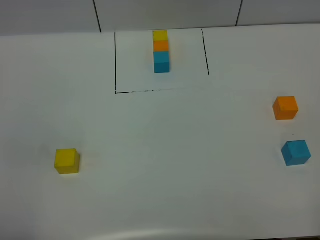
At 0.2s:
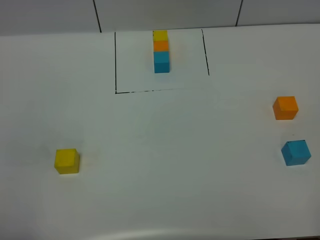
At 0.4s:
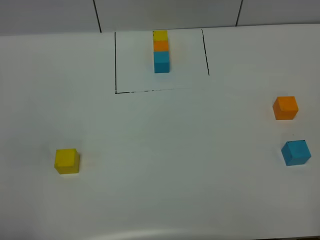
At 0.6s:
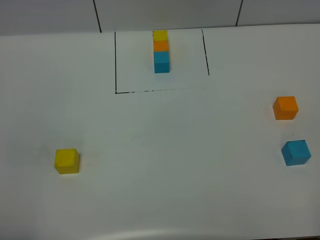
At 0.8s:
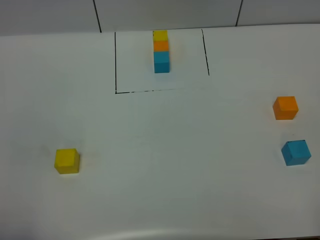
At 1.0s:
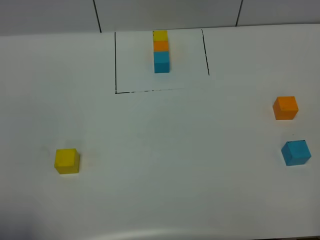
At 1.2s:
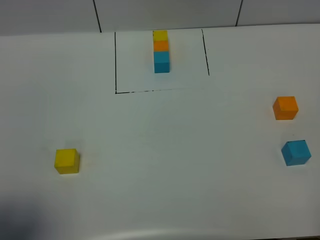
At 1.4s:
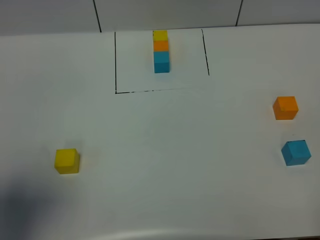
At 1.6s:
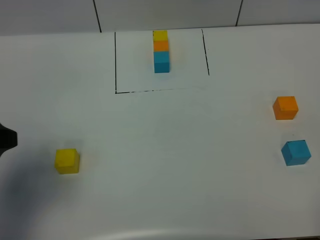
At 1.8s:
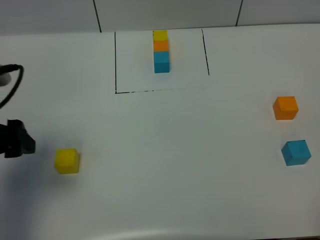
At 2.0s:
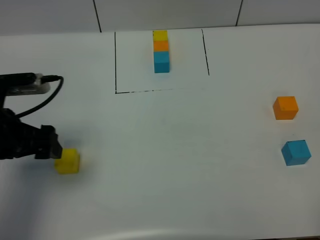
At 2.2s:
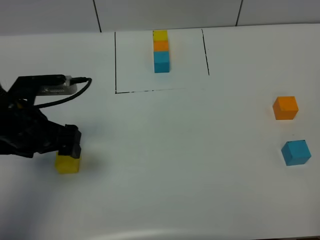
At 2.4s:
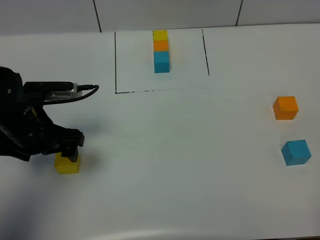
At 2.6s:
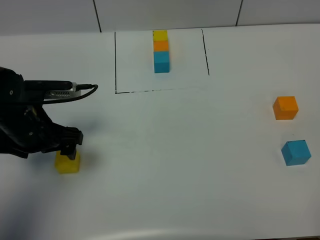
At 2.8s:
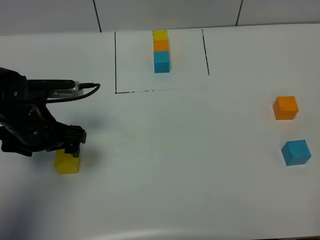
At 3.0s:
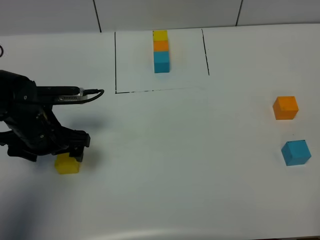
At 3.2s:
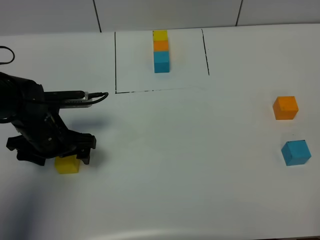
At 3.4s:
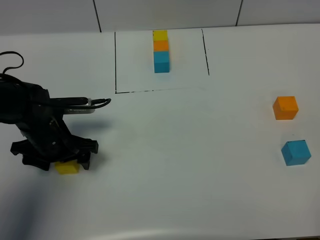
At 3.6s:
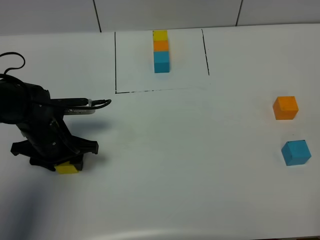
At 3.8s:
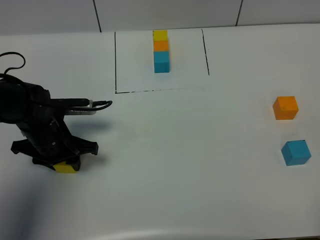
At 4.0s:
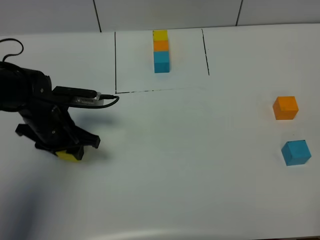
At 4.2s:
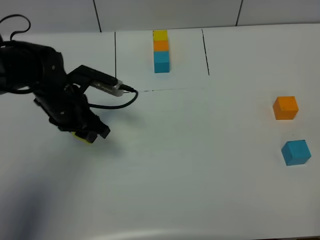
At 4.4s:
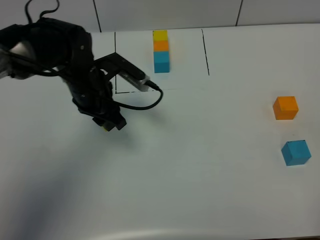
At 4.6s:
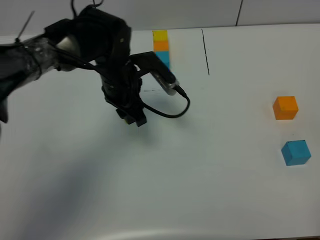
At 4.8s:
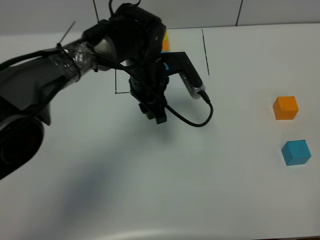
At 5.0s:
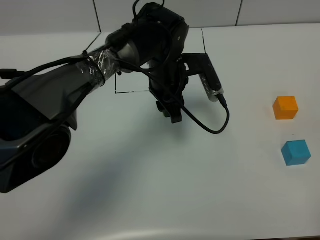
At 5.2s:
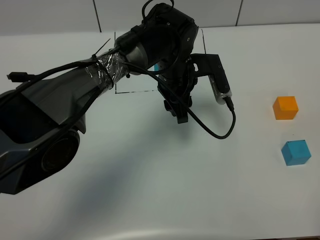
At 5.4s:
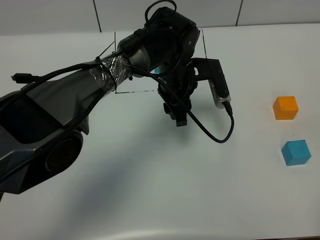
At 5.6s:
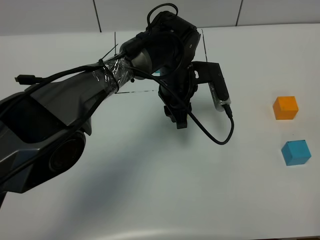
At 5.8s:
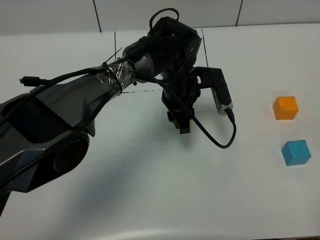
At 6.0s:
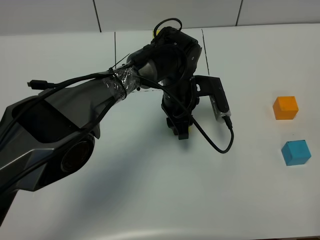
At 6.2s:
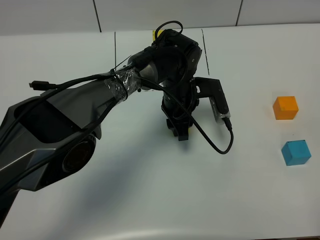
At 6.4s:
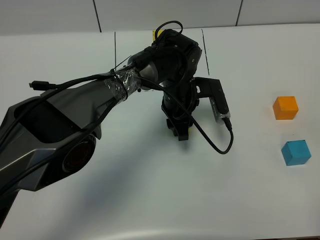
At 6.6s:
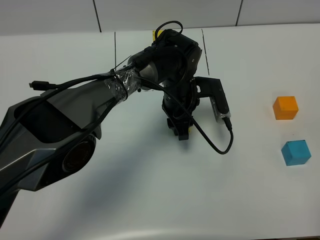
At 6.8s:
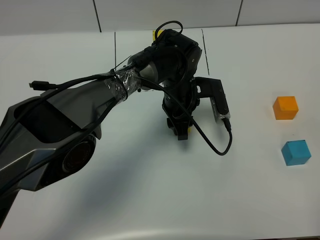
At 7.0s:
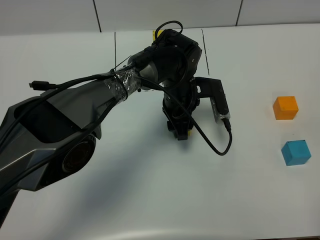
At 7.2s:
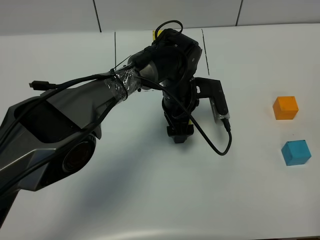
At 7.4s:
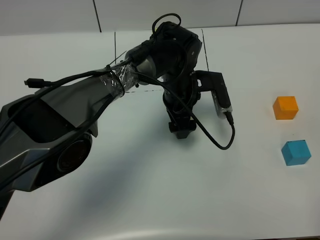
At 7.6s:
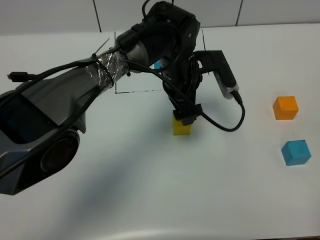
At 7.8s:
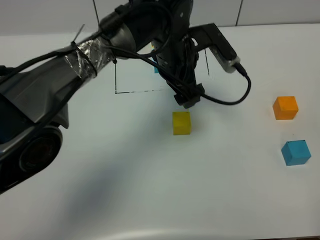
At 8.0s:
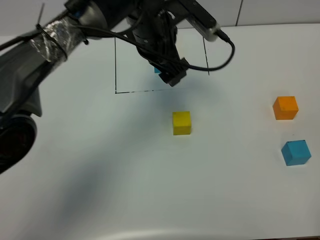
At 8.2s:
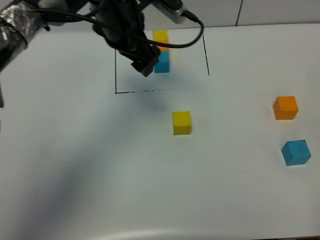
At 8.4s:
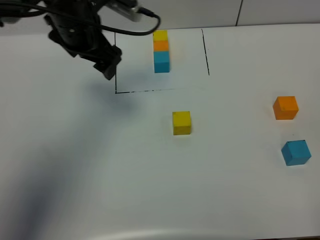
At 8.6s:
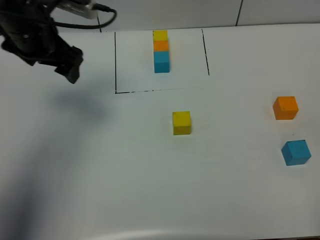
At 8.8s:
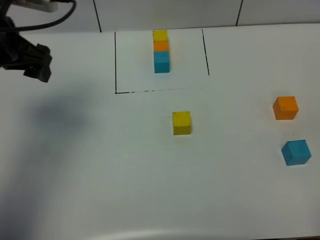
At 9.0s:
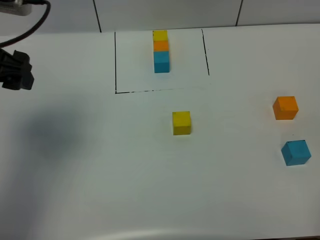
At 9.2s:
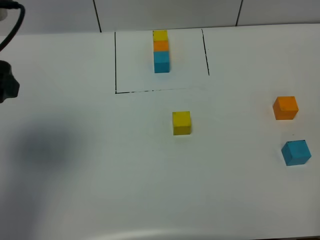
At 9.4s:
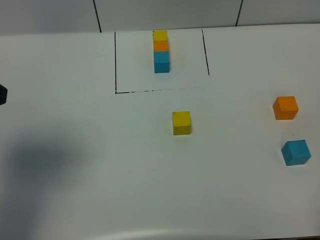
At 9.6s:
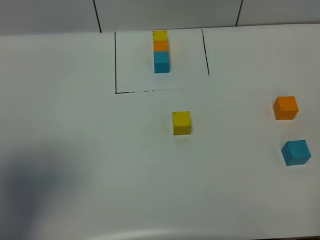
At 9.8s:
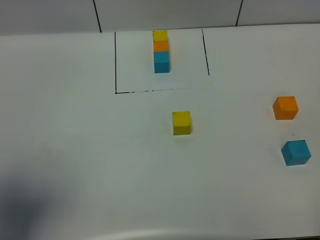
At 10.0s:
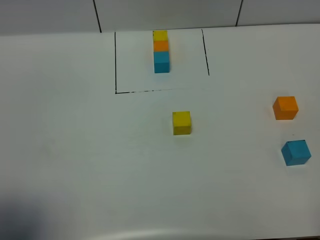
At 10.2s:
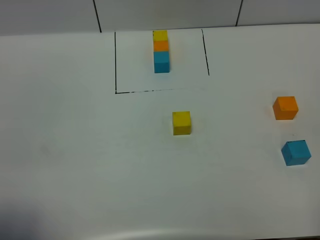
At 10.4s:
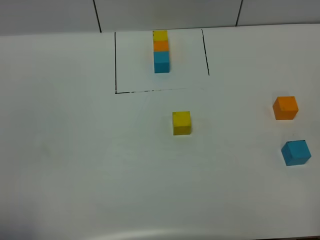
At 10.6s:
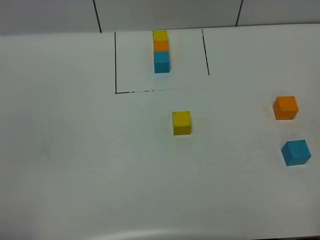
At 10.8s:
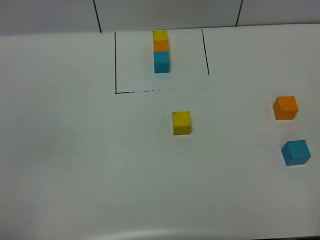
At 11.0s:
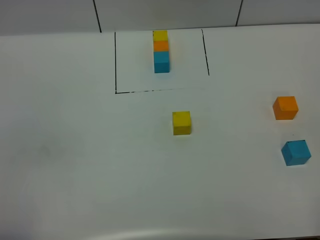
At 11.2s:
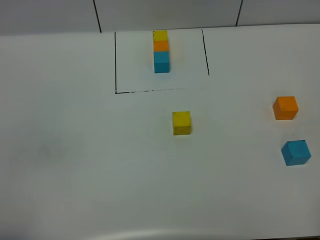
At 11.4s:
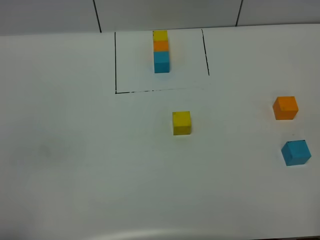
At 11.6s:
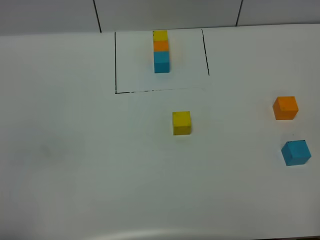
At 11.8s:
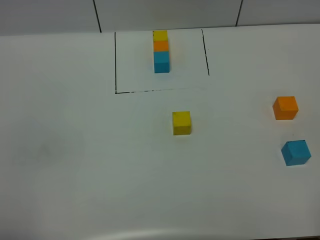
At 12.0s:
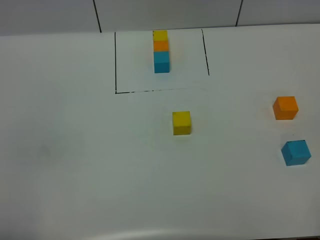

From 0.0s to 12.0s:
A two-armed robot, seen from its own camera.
Task of the whole recording: According to the building block template in front, assemble the scattered blocks together.
Step, from 1.6s to 7.4s: Put the yellow cube in the center of the table.
From 0.0s to 1.6s: The left gripper shifts approximately 20 cm forward.
From 1.6s to 3.0s: The left gripper travels downward, forward and to the right by approximately 20 cm.
From 3.0s to 4.4s: The left gripper heads to the right and forward, covering about 10 cm, and closes its fingers.
From 4.4s to 6.0s: The left gripper travels to the right by approximately 15 cm.
From 6.0s to 7.6s: The left gripper is displaced upward by approximately 5 cm, and opens its fingers.
From 7.6s to 9.0s: The left gripper heads to the left, upward and backward, covering roughly 35 cm.
From 9.0s to 10.4s: The left gripper travels backward by roughly 25 cm.

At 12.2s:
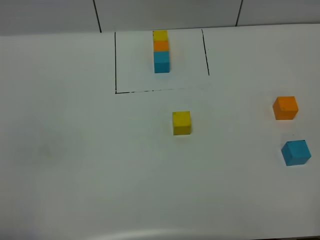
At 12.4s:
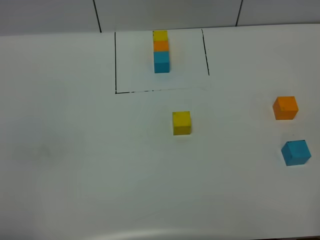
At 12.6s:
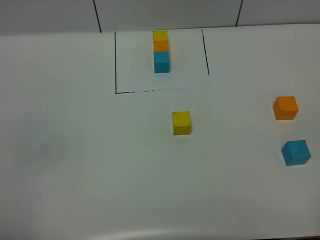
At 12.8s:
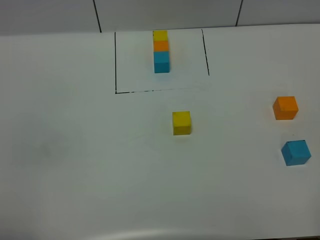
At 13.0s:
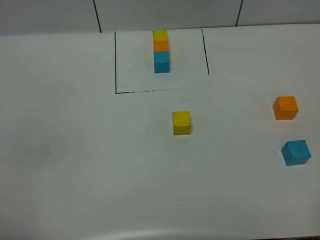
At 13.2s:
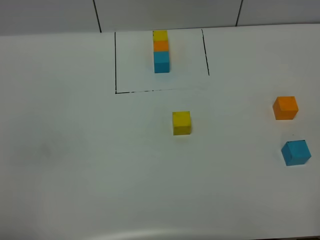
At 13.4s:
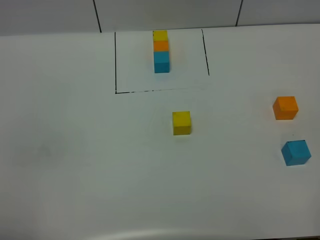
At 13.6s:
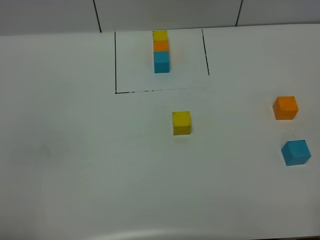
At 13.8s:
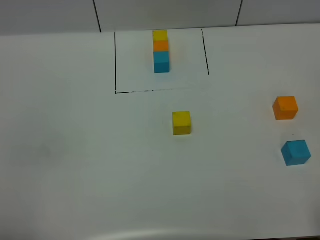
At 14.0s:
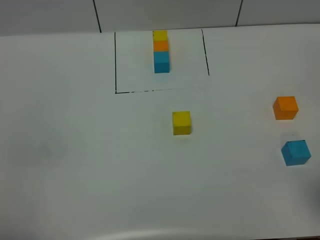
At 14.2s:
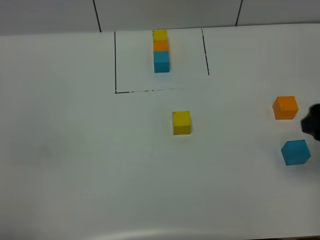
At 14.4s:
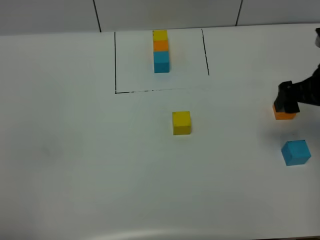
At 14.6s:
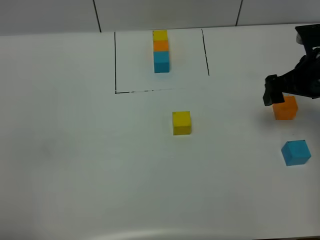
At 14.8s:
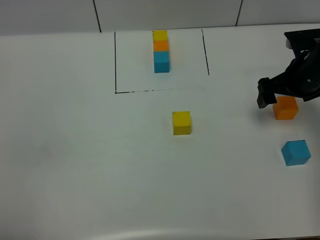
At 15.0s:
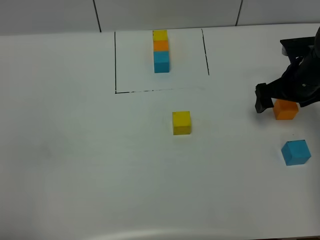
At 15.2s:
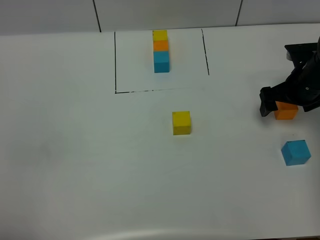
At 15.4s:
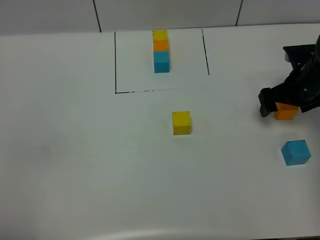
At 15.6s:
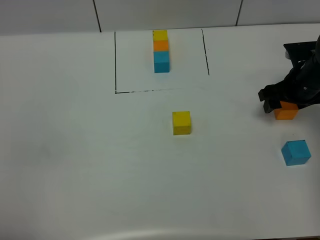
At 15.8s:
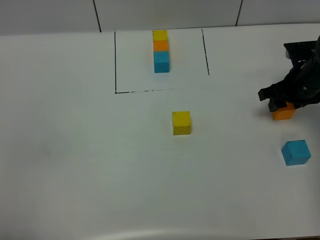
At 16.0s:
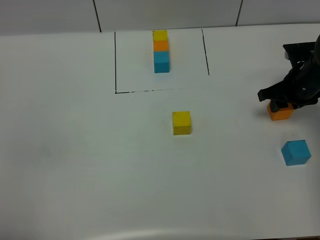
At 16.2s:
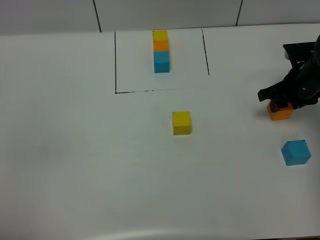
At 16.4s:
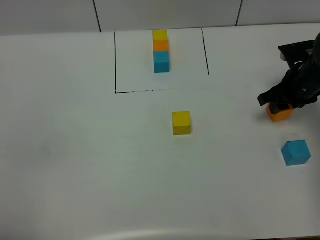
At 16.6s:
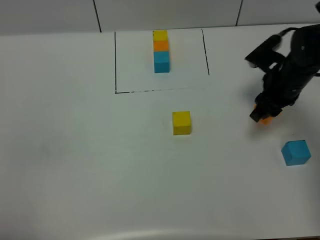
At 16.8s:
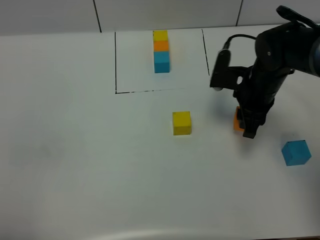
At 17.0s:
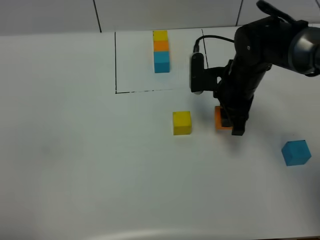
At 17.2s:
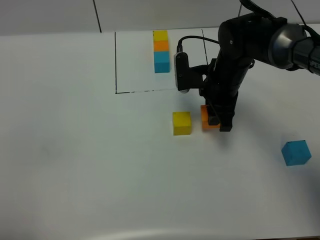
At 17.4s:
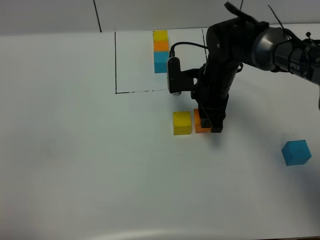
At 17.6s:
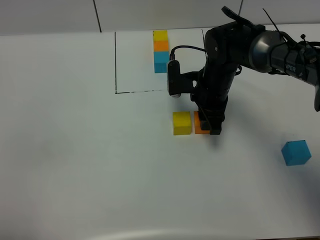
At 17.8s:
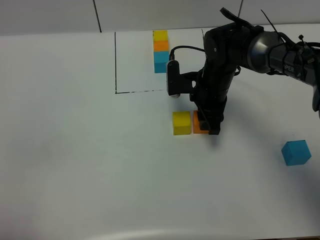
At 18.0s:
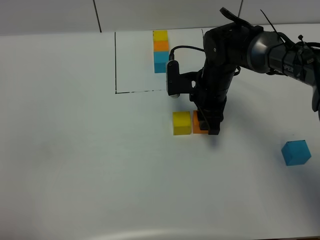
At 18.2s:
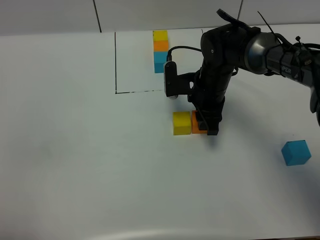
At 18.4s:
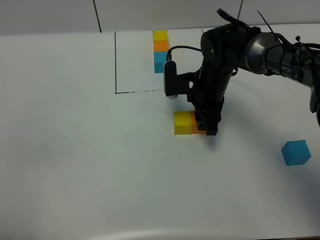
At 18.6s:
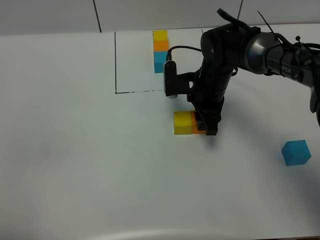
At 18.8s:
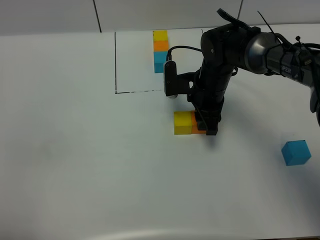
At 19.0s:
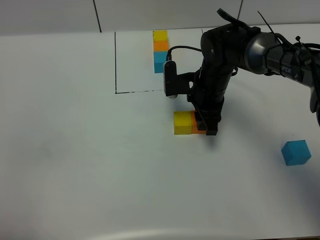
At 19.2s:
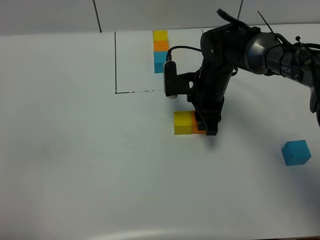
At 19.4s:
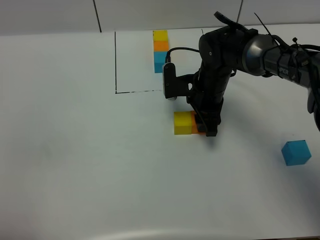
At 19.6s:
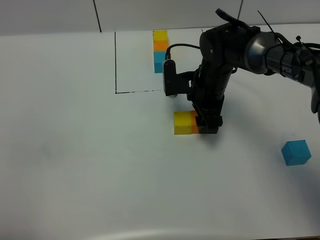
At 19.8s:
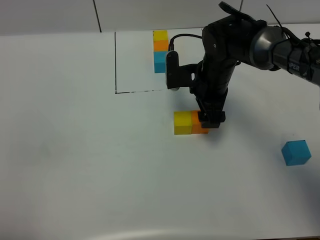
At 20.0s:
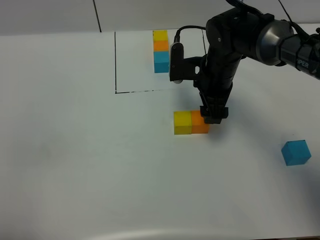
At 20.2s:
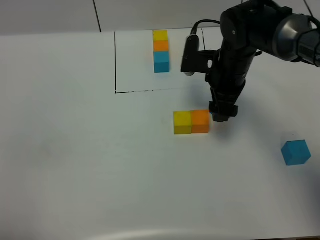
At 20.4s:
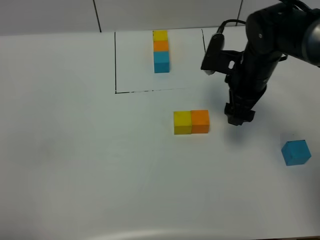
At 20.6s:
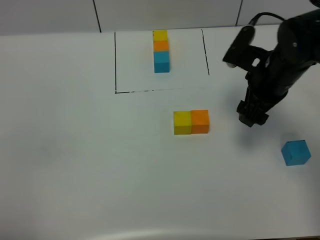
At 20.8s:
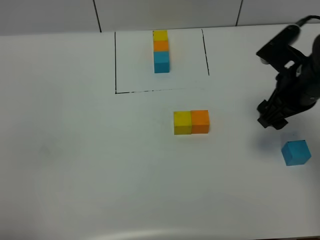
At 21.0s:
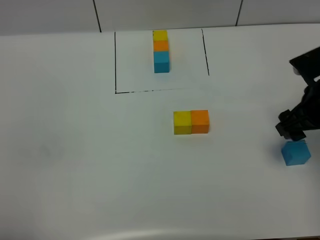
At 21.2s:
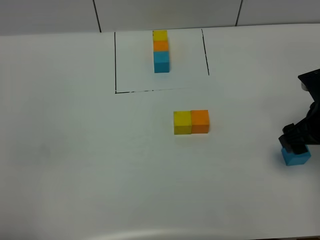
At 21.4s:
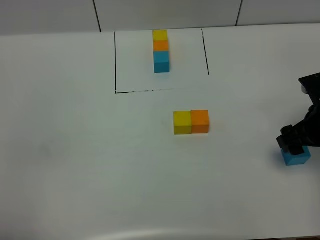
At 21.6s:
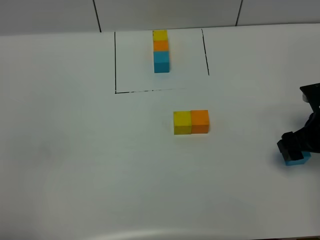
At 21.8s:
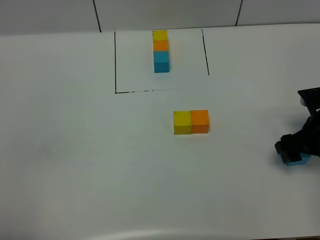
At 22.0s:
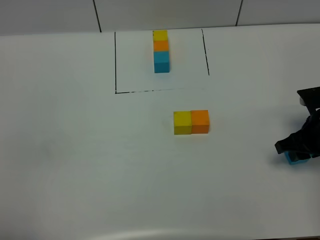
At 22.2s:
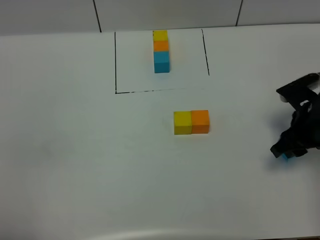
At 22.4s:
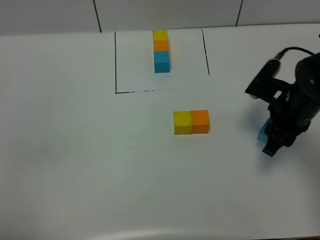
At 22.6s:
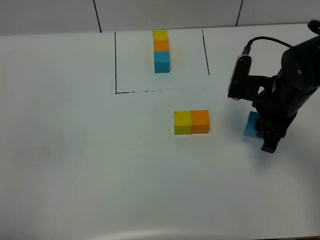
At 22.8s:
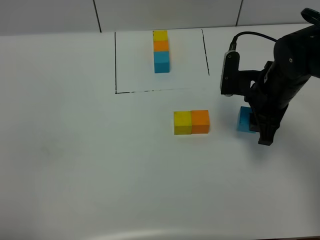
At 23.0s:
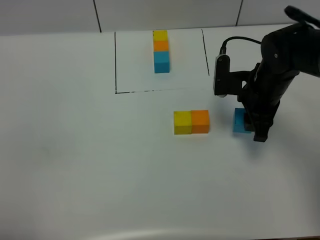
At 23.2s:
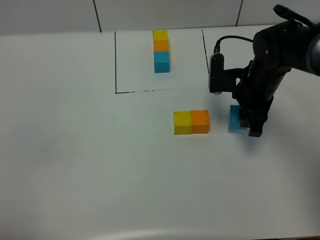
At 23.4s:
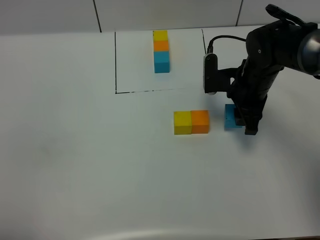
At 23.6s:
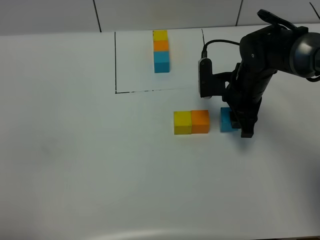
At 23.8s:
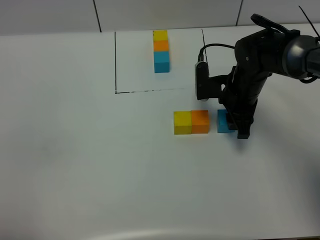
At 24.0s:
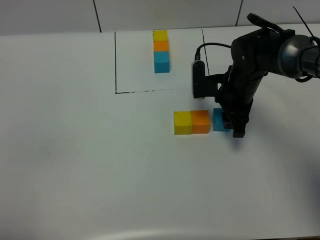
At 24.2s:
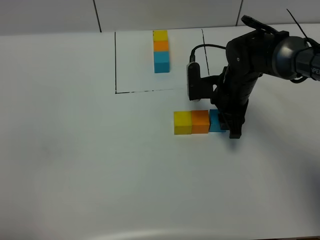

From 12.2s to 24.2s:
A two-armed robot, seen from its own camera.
Task of the whole recording: According to the building block template in front, assemble the scattered blocks together.
Step, from 12.2s to 19.8s: Put the orange cube on the right of the yellow cube.
From 13.8s to 15.2s: The right gripper is displaced forward and downward by about 35 cm.
From 15.2s to 16.6s: The right gripper heads to the left, covering about 5 cm, and closes its fingers.
From 16.6s to 18.2s: The right gripper heads to the left, covering approximately 15 cm.
From 18.2s to 19.8s: The right gripper opens.
From 19.8s to 21.2s: The right gripper shifts about 20 cm to the right and backward.
From 21.2s to 22.6s: The right gripper moves to the left, approximately 10 cm, and closes.
From 22.6s to 24.2s: The right gripper moves to the left, forward and downward, roughly 10 cm.
